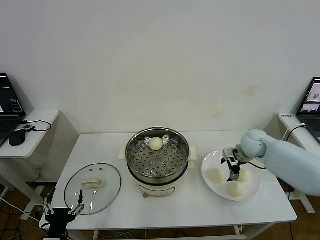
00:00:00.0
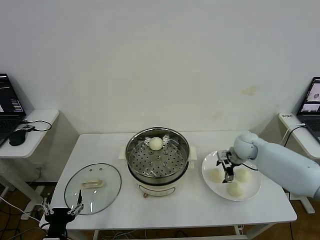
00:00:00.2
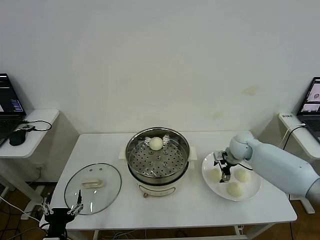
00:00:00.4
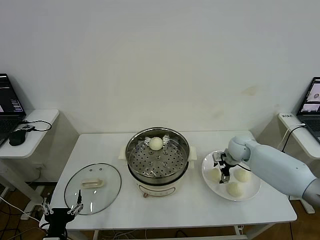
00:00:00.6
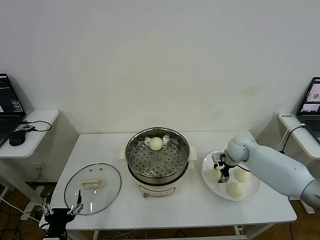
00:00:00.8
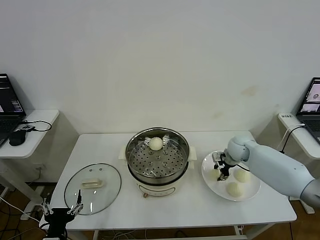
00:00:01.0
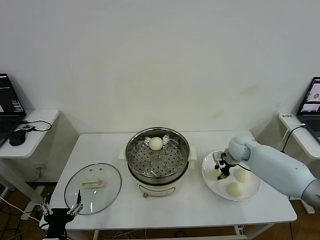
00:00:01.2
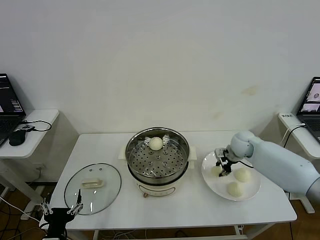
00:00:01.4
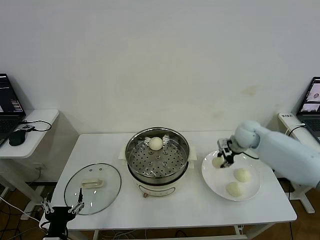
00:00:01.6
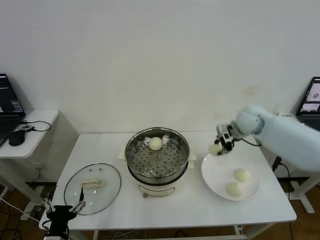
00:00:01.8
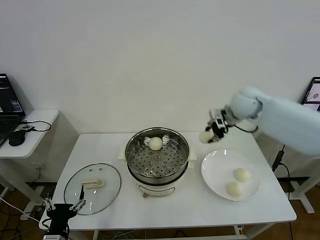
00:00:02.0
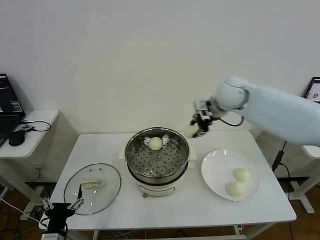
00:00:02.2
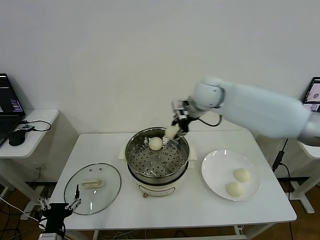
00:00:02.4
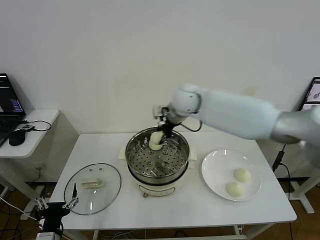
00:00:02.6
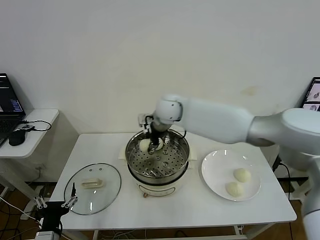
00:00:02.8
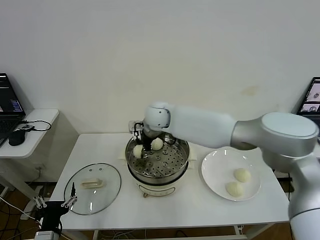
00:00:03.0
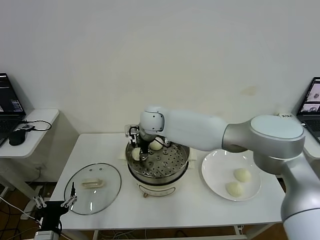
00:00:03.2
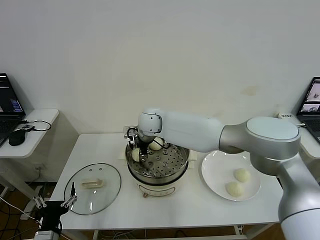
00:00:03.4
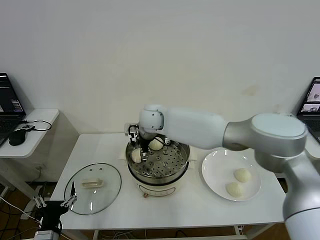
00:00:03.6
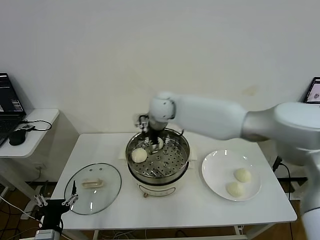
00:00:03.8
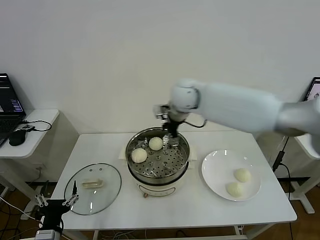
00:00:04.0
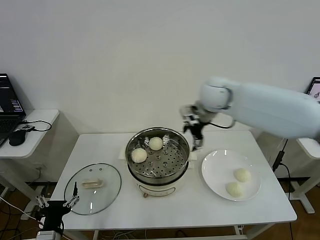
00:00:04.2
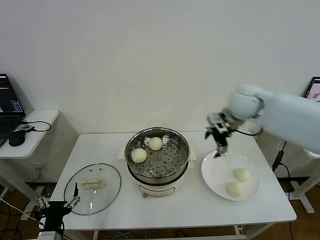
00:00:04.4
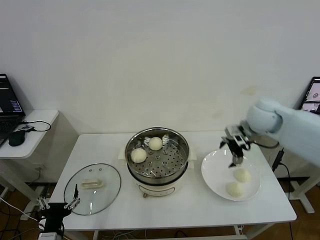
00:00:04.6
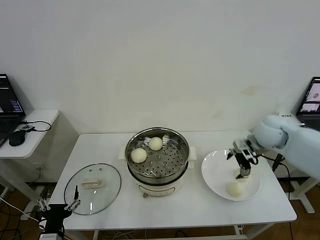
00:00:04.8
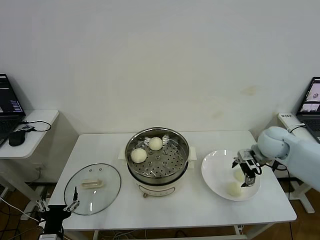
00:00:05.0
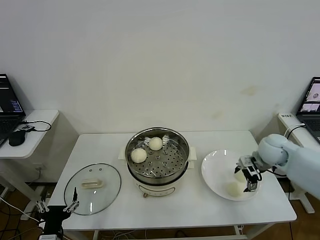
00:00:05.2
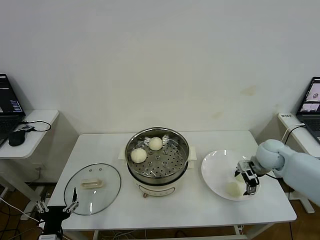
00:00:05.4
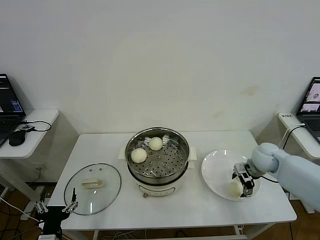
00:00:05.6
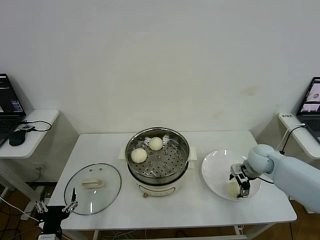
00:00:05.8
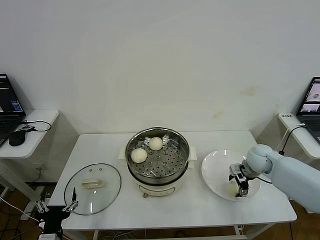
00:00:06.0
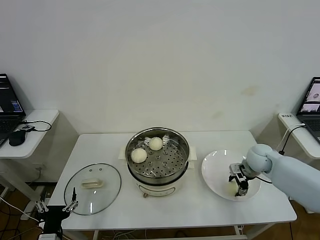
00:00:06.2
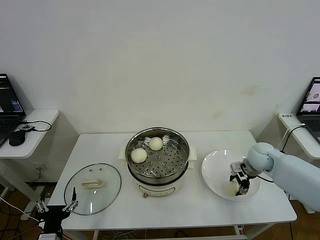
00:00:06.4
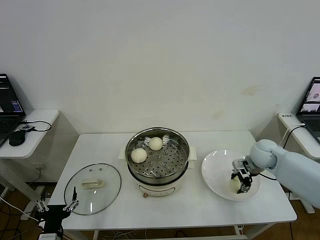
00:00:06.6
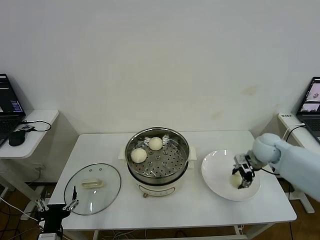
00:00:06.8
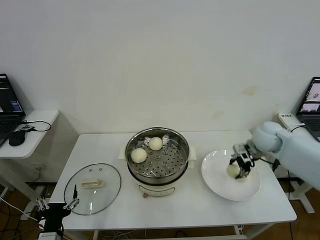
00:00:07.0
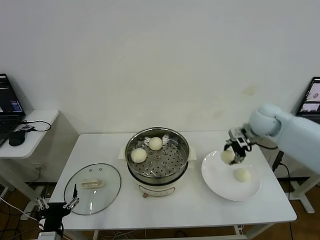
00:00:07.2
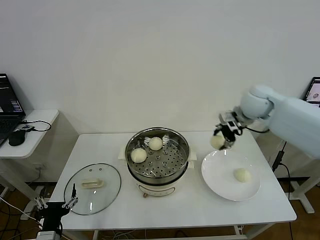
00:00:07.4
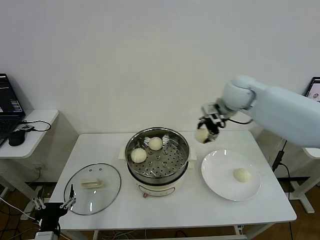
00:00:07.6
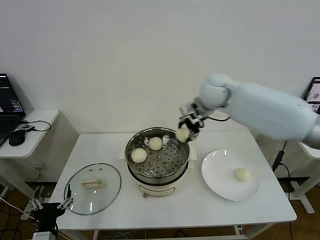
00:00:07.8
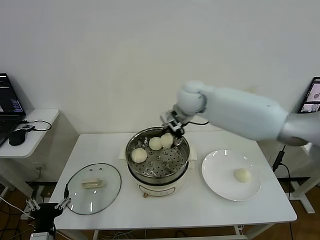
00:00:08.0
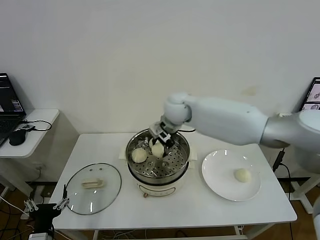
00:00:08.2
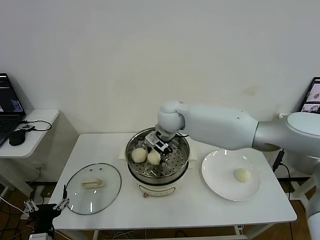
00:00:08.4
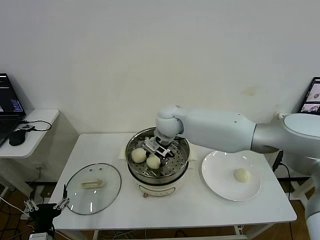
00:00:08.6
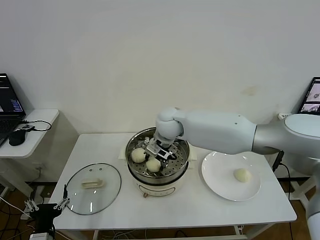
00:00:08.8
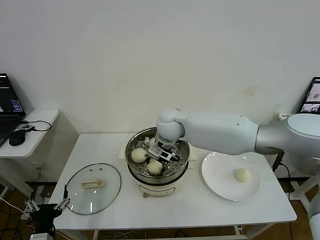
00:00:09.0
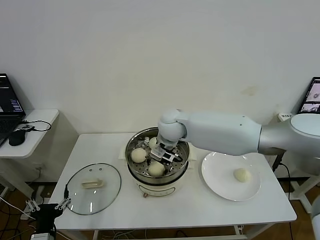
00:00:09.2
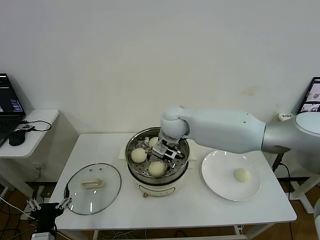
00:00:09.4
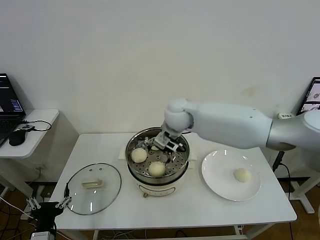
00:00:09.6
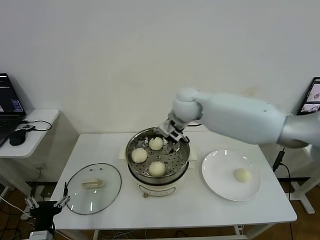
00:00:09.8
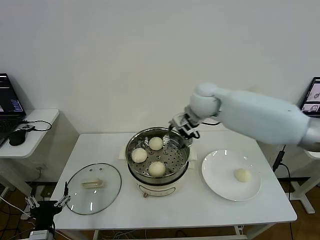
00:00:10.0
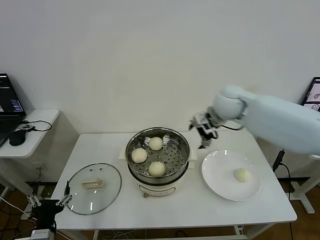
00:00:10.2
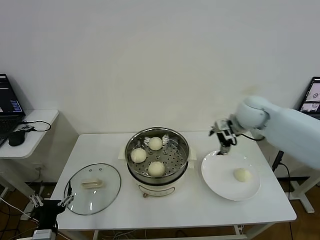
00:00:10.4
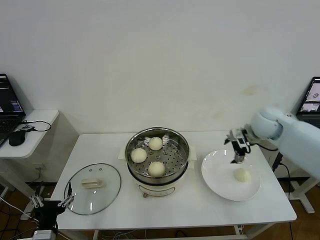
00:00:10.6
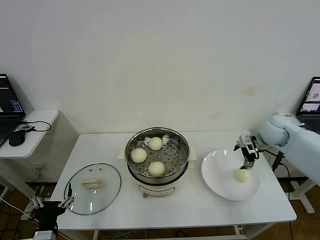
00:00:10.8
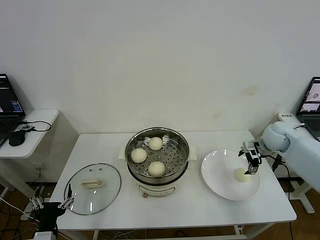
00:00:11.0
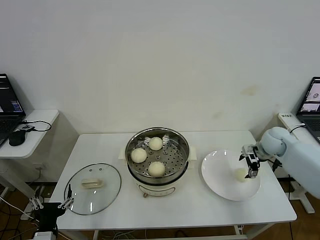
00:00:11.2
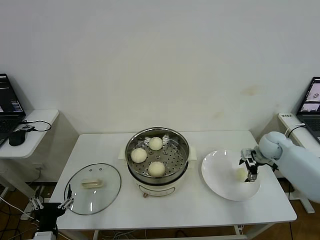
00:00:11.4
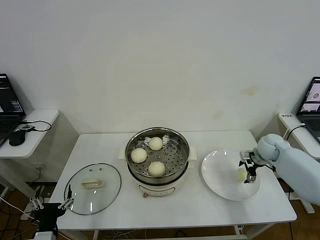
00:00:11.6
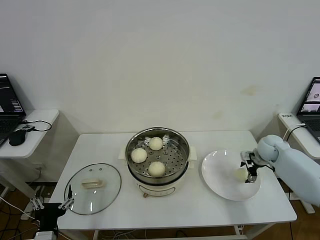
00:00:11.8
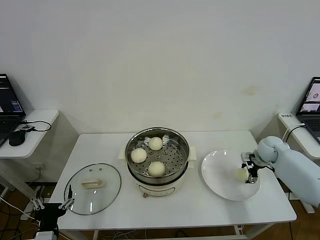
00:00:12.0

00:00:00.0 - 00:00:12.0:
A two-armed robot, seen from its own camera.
Step, 00:00:01.4 - 00:00:03.4: Place the baozi on the steamer with right gripper.
Step, 00:00:03.8 - 00:00:06.2: Grasp the baozi in the plate with right gripper.
Step, 00:00:06.4 - 00:00:09.2: Place the baozi on the steamer with right gripper.
00:00:00.0 - 00:00:01.6: The right gripper goes some 5 cm upward, and closes.
00:00:01.6 - 00:00:03.0: The right gripper travels to the left by approximately 35 cm.
00:00:03.0 - 00:00:04.4: The right gripper is displaced to the right by about 30 cm, and opens.
00:00:04.4 - 00:00:06.0: The right gripper is displaced downward and to the right by roughly 20 cm.
00:00:06.0 - 00:00:07.6: The right gripper goes roughly 30 cm upward and to the left.
00:00:07.6 - 00:00:09.0: The right gripper is displaced to the left and downward by approximately 20 cm.
00:00:09.0 - 00:00:10.4: The right gripper moves to the right, about 25 cm, and opens.
00:00:10.4 - 00:00:12.0: The right gripper is displaced downward and to the right by roughly 20 cm.

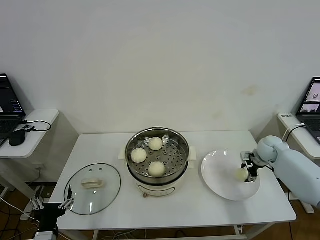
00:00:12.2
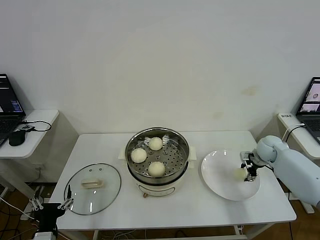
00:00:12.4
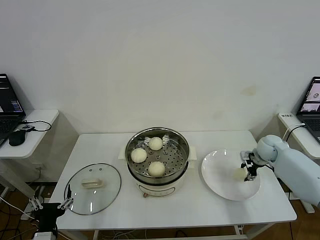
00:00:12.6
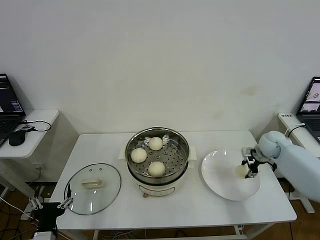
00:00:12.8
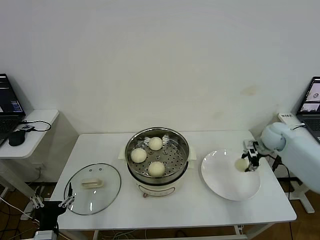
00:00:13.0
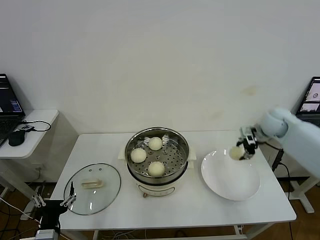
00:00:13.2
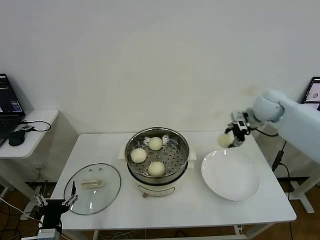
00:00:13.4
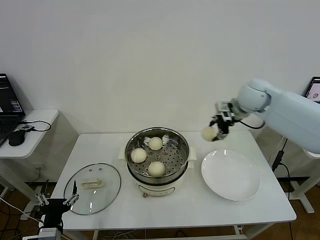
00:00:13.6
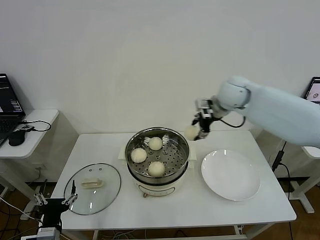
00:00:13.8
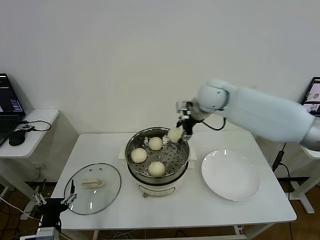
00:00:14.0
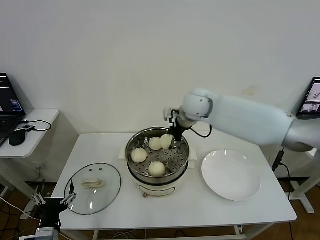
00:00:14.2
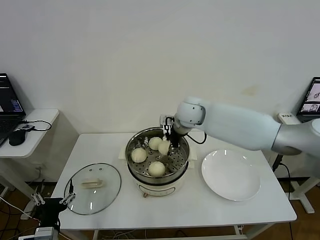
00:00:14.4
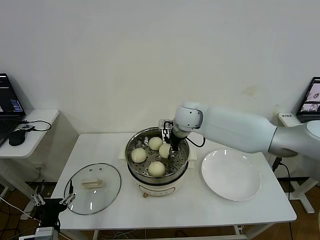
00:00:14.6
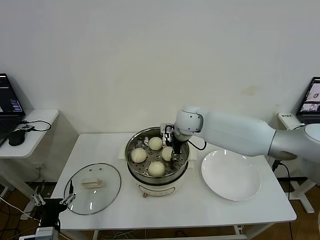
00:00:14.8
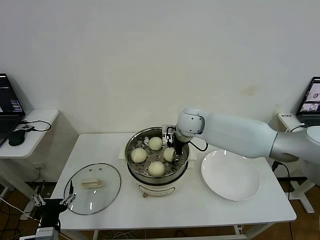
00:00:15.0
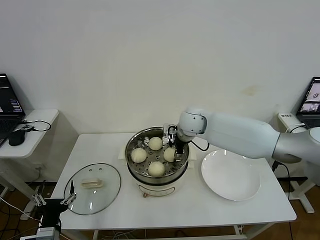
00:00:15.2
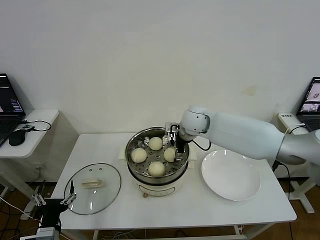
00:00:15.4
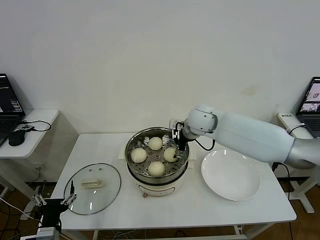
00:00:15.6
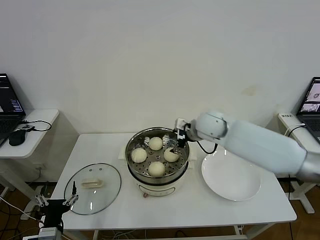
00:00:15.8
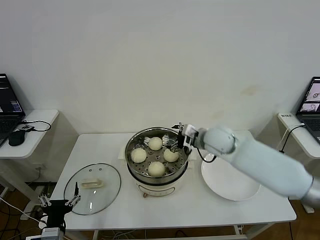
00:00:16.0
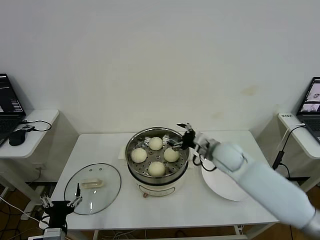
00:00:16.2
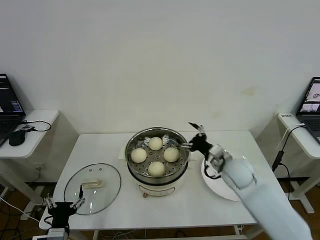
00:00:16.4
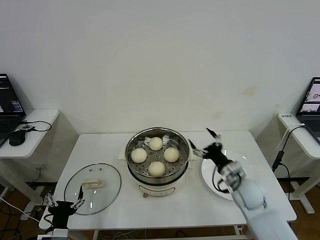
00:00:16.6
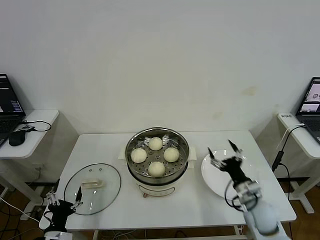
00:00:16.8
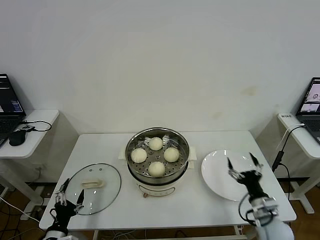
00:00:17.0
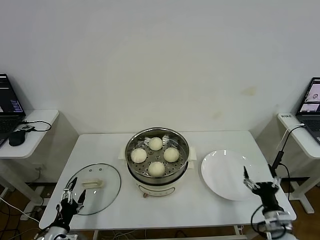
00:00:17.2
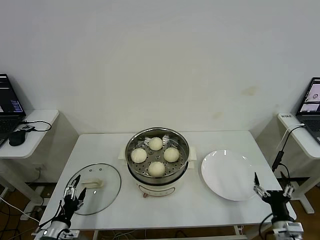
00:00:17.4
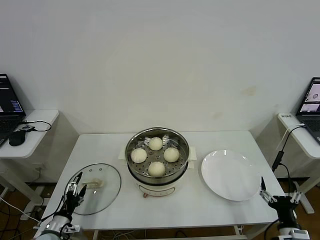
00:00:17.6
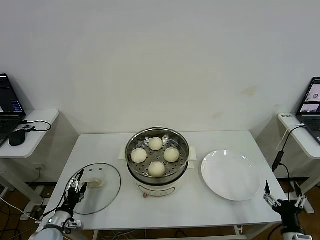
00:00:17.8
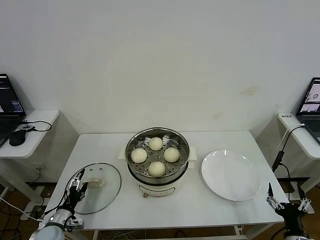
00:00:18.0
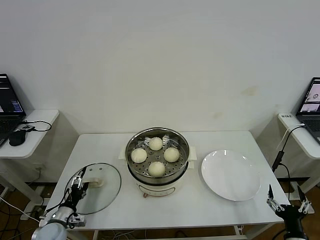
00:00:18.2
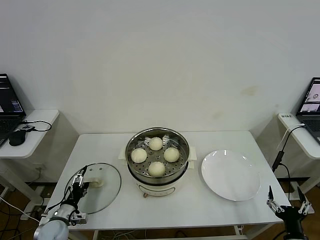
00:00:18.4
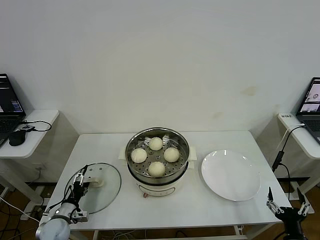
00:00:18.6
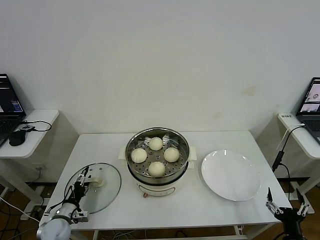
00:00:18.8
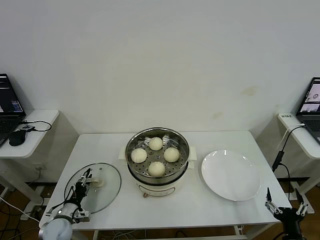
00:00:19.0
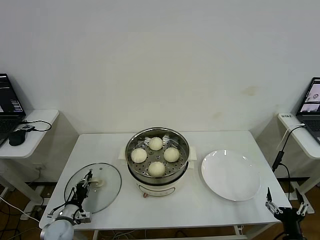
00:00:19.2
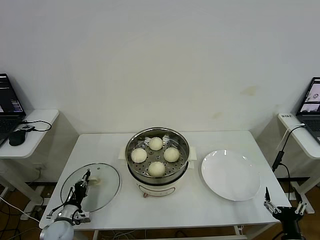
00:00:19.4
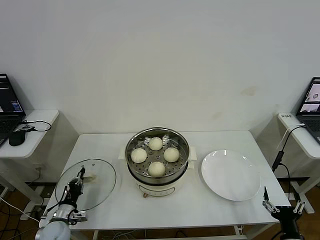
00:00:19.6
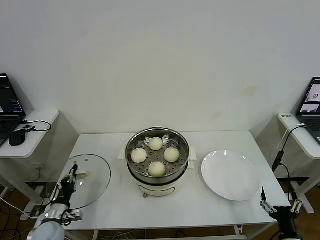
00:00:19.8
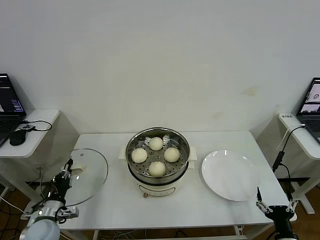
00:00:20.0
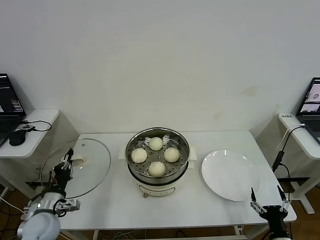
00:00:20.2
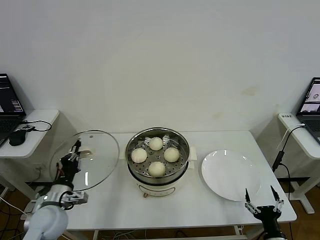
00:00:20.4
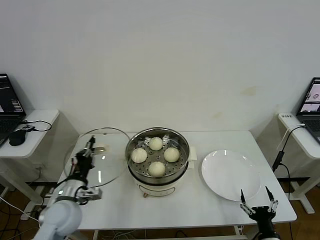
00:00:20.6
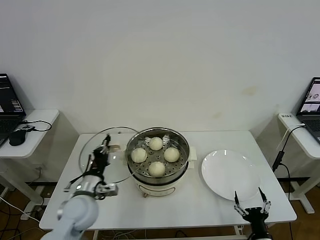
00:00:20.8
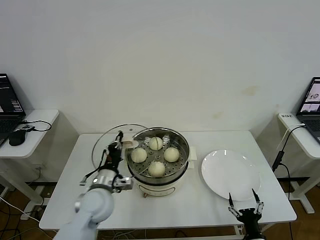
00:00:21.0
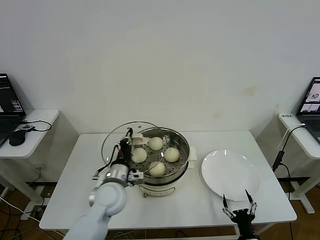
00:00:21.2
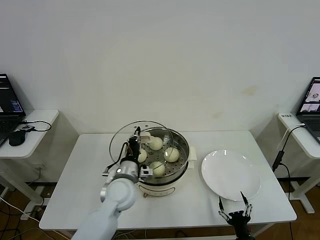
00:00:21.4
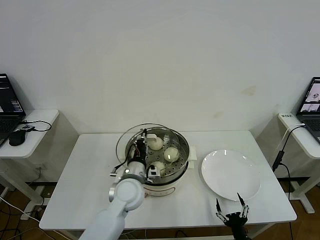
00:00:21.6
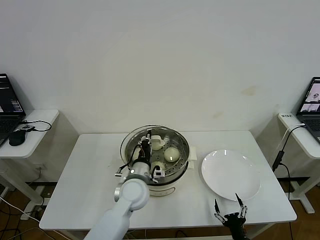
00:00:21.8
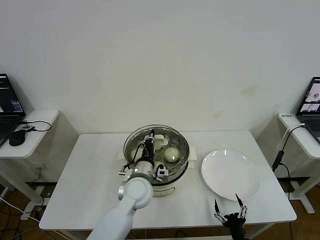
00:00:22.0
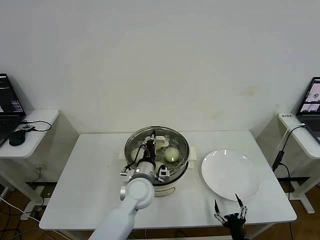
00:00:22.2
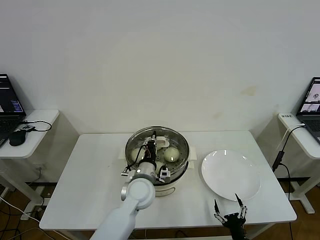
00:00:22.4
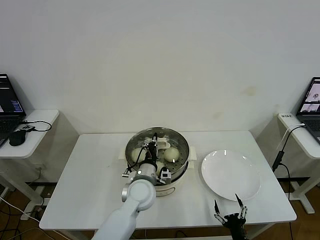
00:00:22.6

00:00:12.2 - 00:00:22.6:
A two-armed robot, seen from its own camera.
Step, 00:00:12.8 - 00:00:15.2: Place the baozi on the steamer with right gripper.
Step, 00:00:15.4 - 00:00:19.4: Grasp the pot lid with left gripper.
00:00:12.2 - 00:00:13.6: The right gripper travels upward and to the left by roughly 30 cm.
00:00:13.6 - 00:00:15.2: The right gripper shifts approximately 20 cm to the left and downward, and opens.
00:00:15.2 - 00:00:16.6: The right gripper shifts some 30 cm backward, to the right and downward.
00:00:16.6 - 00:00:18.2: The left gripper goes approximately 15 cm forward, downward and to the left, while the right gripper moves backward and to the right, some 25 cm.
00:00:18.2 - 00:00:19.6: The left gripper closes up.
00:00:19.6 - 00:00:21.2: The left gripper is displaced to the right and upward by approximately 30 cm; the right gripper travels to the left and downward by about 10 cm.
00:00:21.2 - 00:00:22.6: The left gripper shifts approximately 10 cm to the right.
